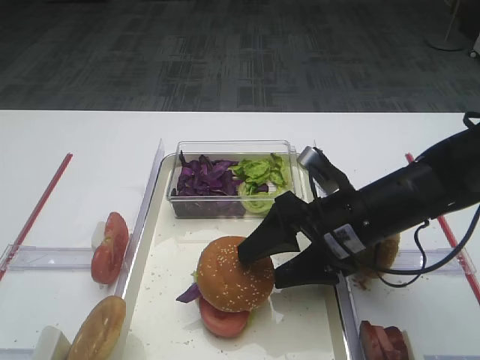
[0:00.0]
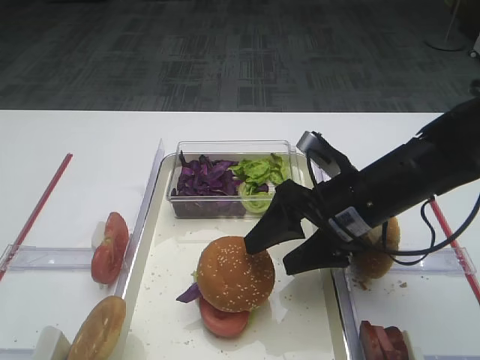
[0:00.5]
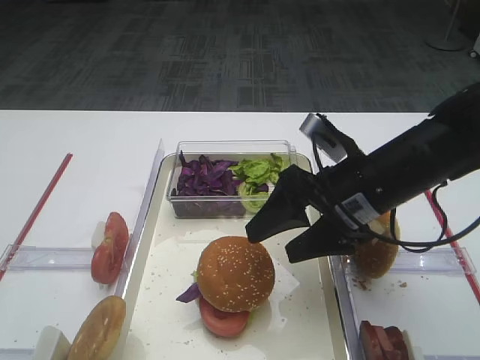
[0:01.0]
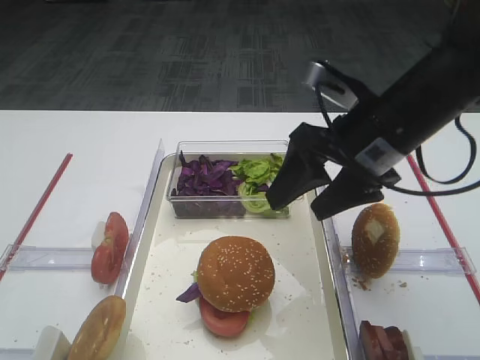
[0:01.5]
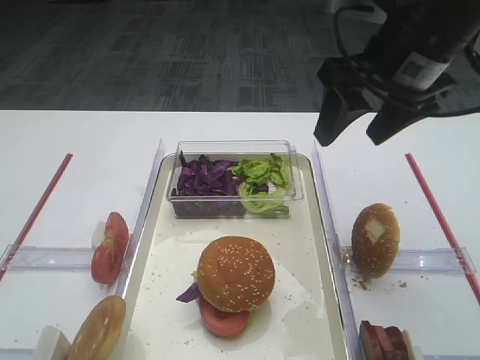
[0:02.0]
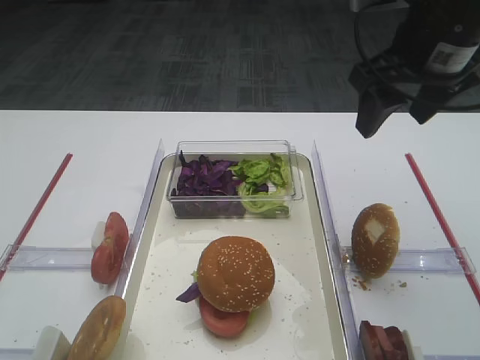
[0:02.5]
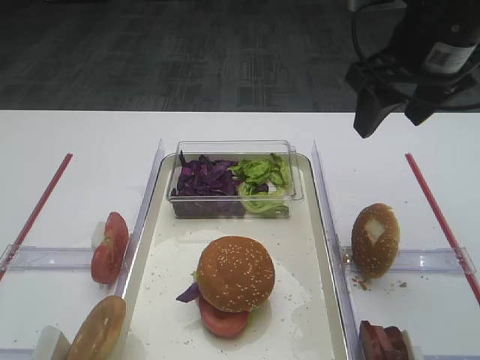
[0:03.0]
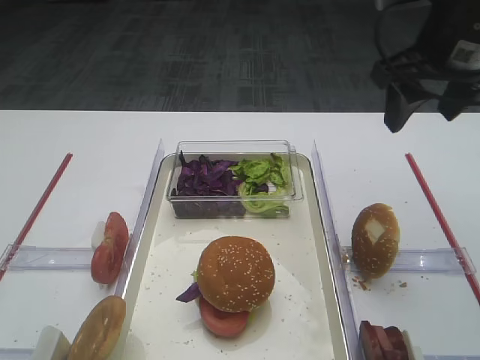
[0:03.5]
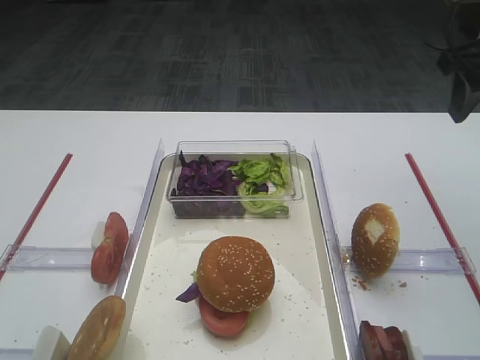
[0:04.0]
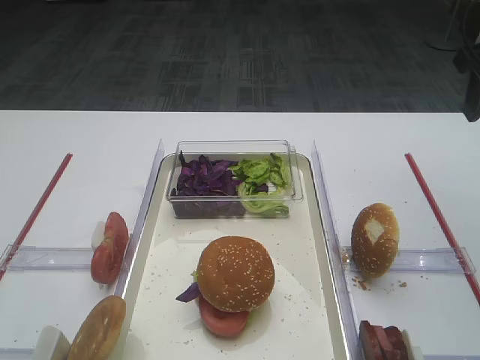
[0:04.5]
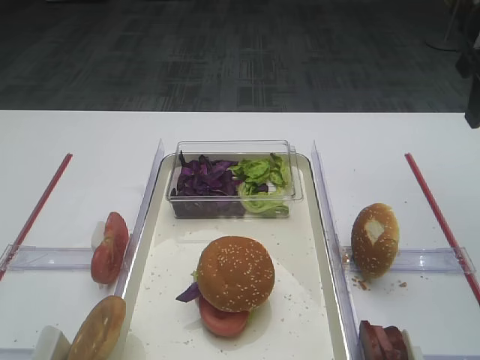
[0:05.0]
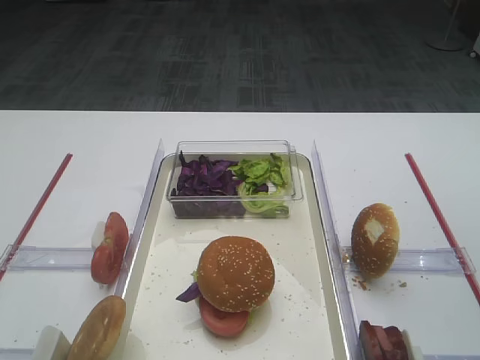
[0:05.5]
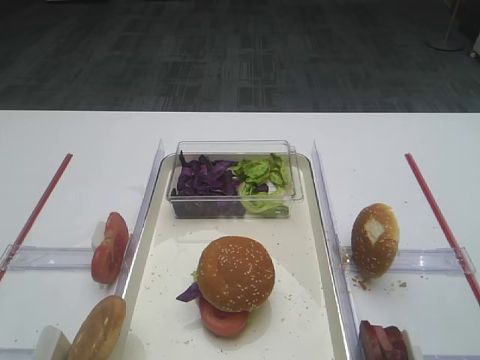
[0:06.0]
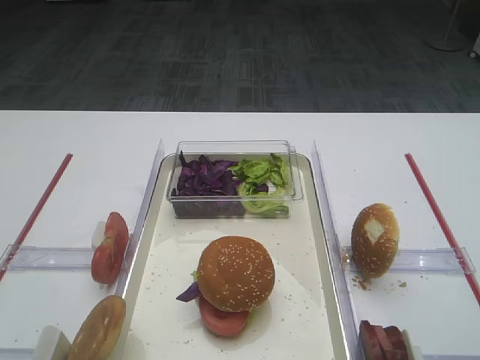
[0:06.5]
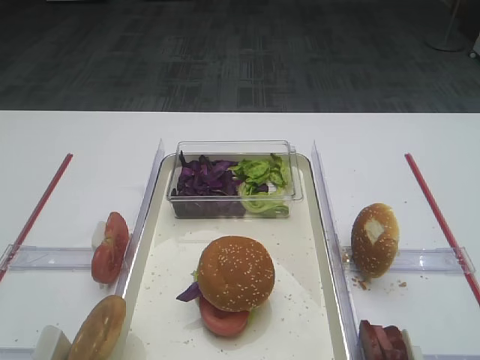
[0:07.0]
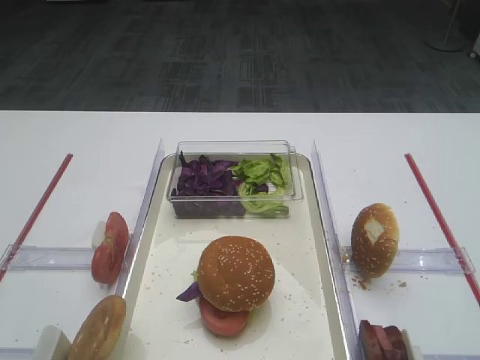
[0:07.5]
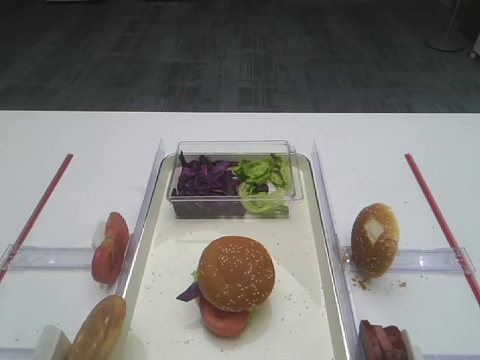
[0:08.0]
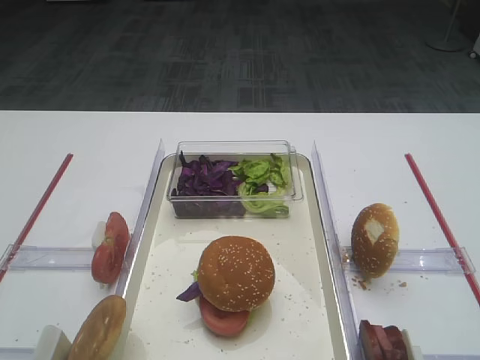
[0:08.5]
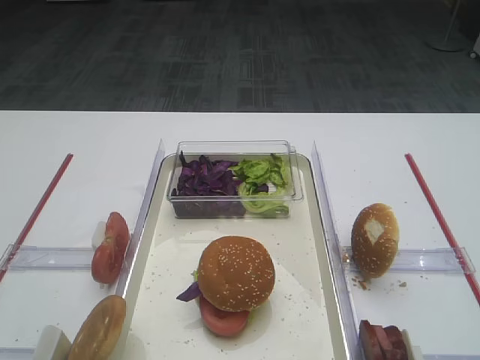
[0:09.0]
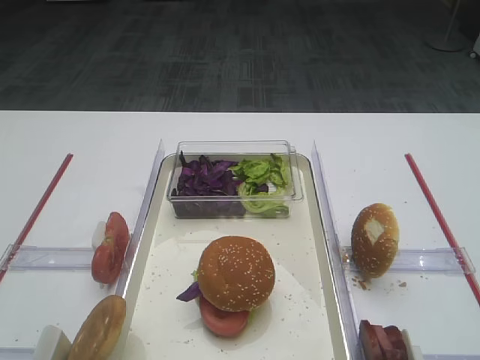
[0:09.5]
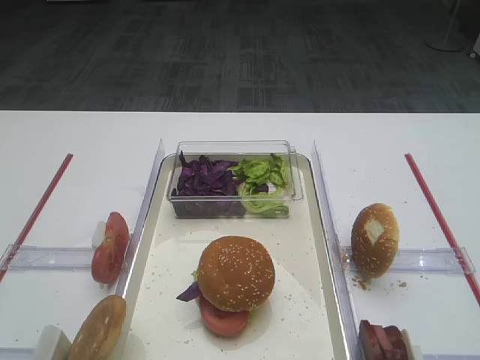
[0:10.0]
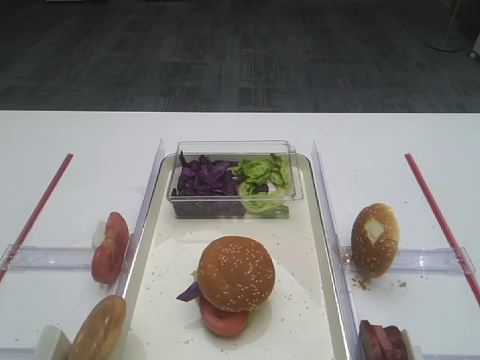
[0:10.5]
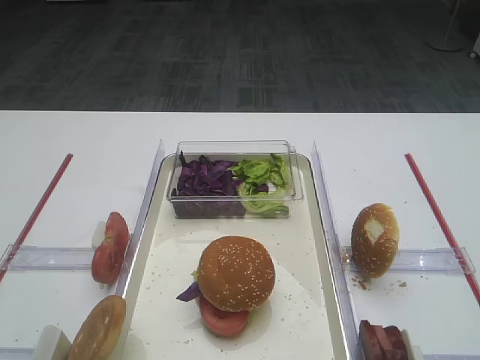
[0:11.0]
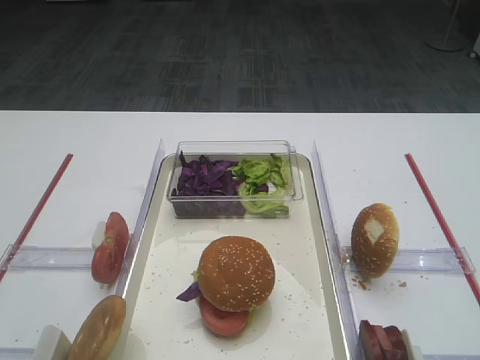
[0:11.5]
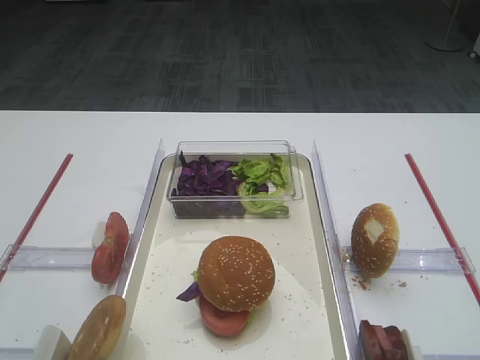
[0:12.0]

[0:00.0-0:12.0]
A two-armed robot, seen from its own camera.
0:00.0 to 0:02.0: The right gripper is displaced upward by roughly 20 cm.
0:02.0 to 0:04.0: The right gripper goes some 10 cm to the right.
0:04.0 to 0:06.0: The right gripper heads backward, covering about 20 cm.
0:08.0 to 0:12.0: Both grippers stay put.

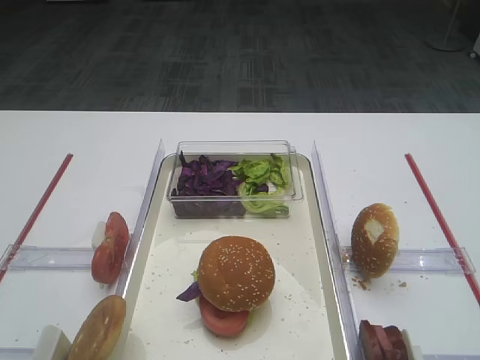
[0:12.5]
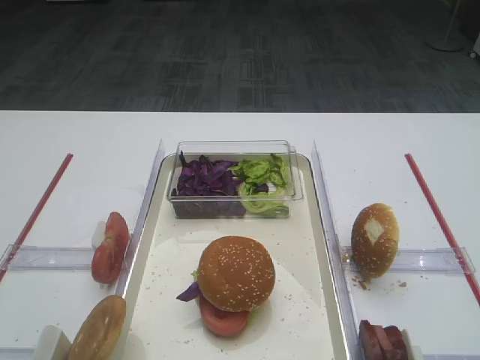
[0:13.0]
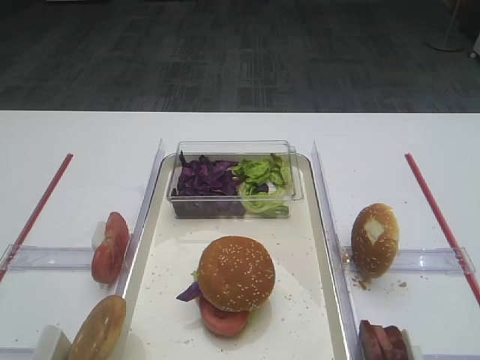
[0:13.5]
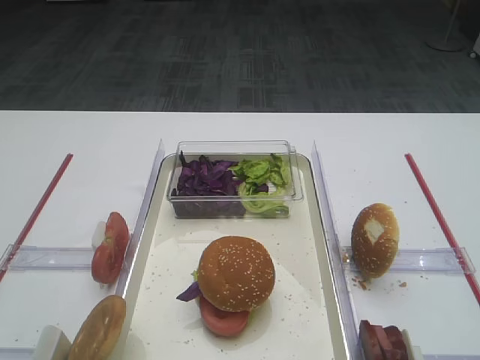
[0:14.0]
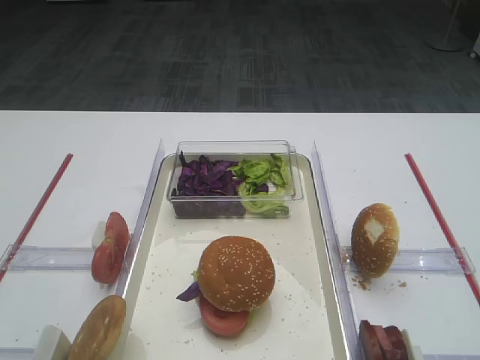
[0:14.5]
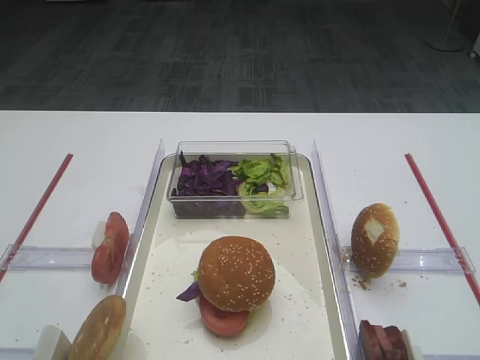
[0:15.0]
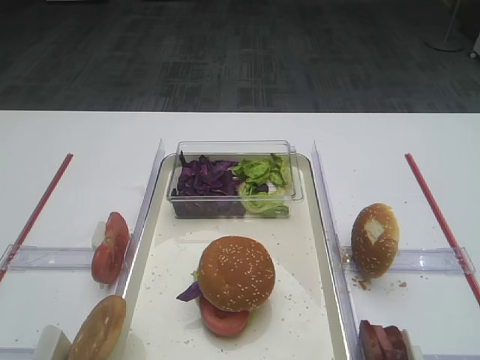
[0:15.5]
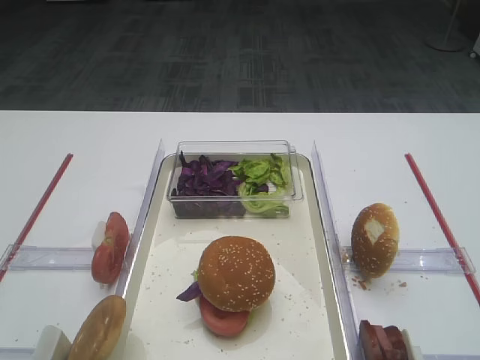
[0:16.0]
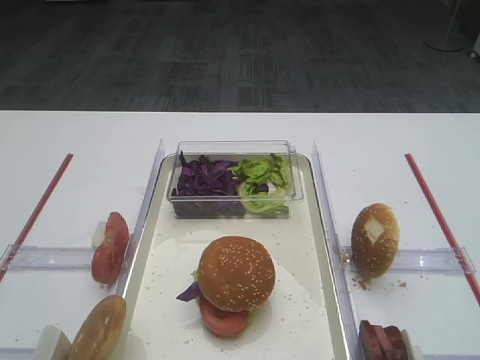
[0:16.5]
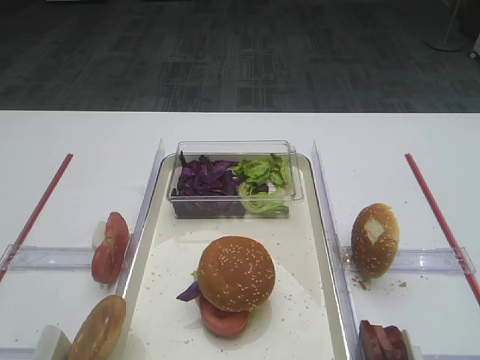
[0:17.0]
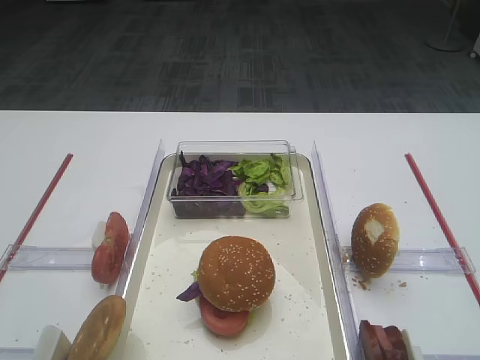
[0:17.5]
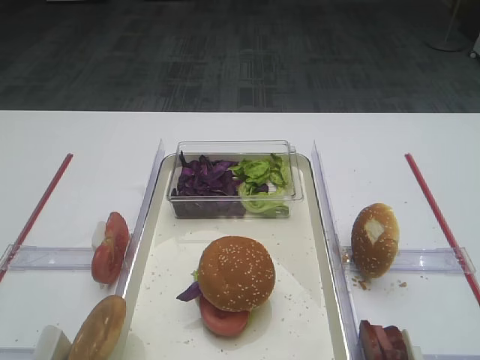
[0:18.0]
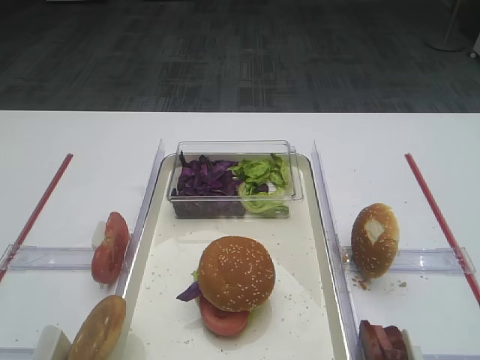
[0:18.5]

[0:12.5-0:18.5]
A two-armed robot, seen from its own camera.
0:12.5 to 0:18.5: Both grippers stay put.

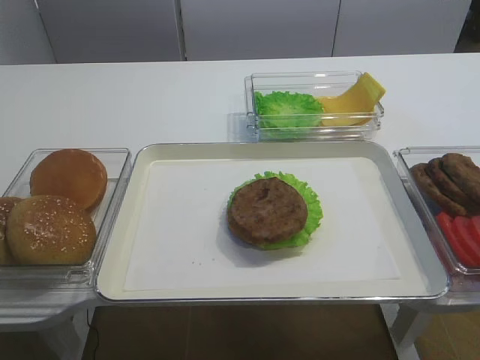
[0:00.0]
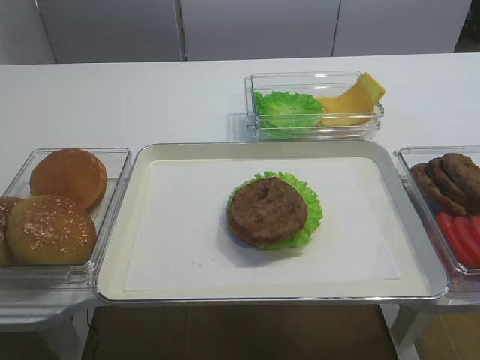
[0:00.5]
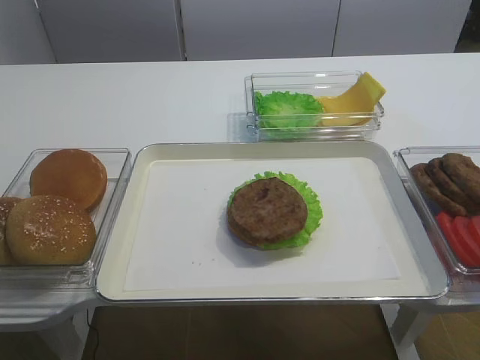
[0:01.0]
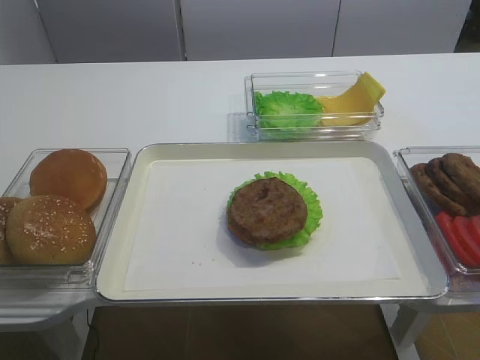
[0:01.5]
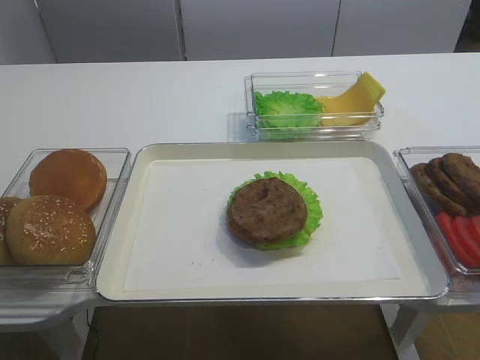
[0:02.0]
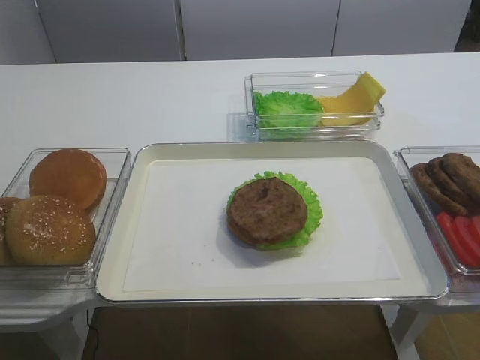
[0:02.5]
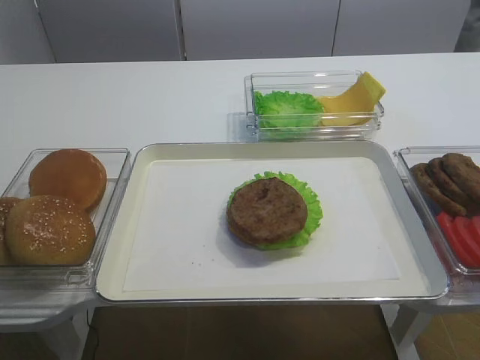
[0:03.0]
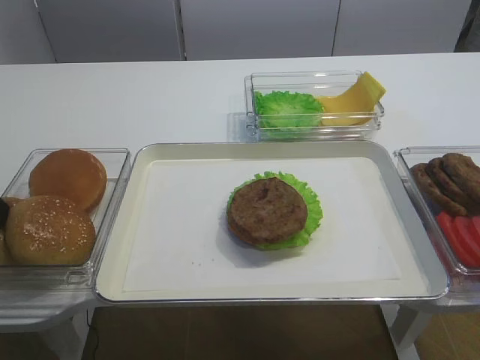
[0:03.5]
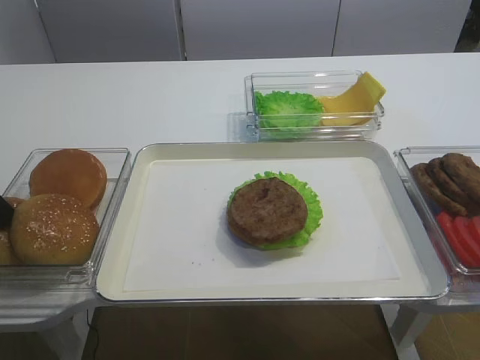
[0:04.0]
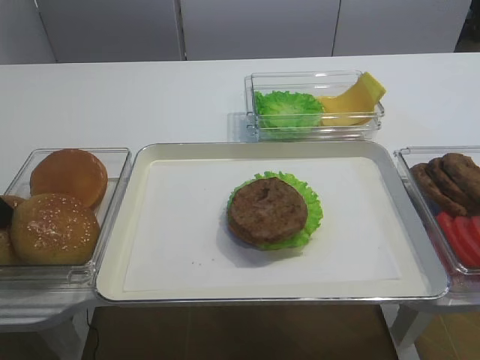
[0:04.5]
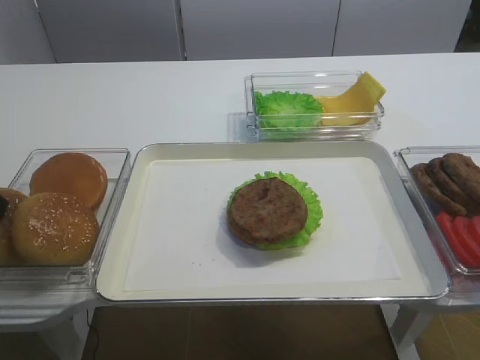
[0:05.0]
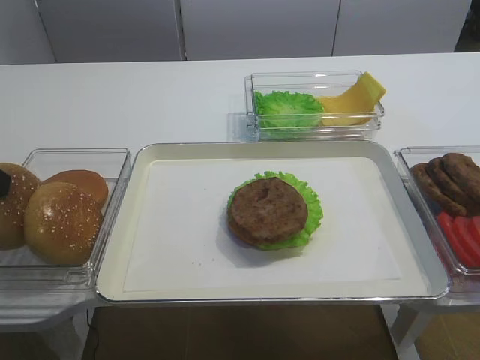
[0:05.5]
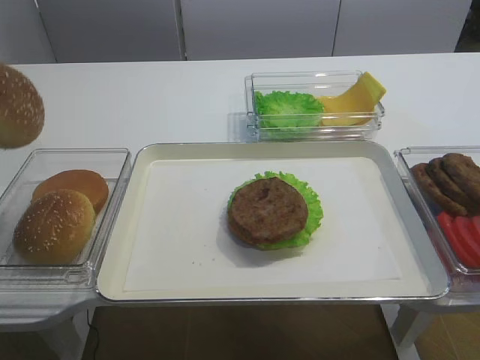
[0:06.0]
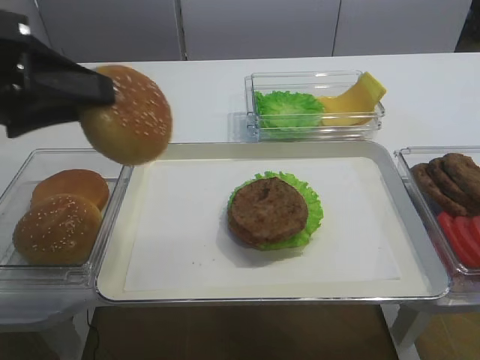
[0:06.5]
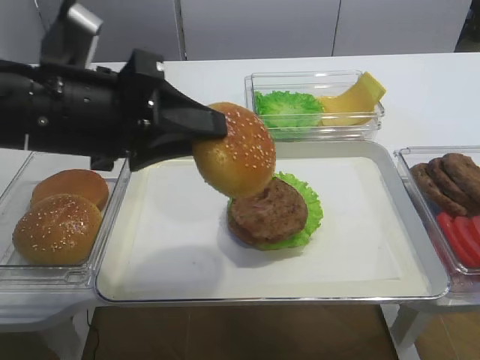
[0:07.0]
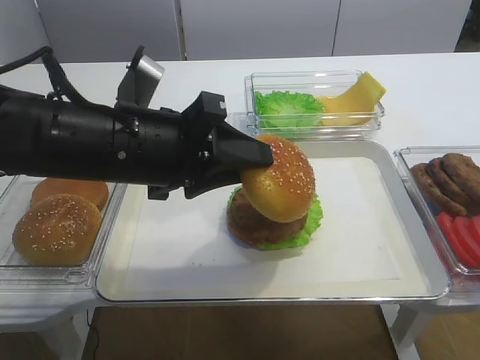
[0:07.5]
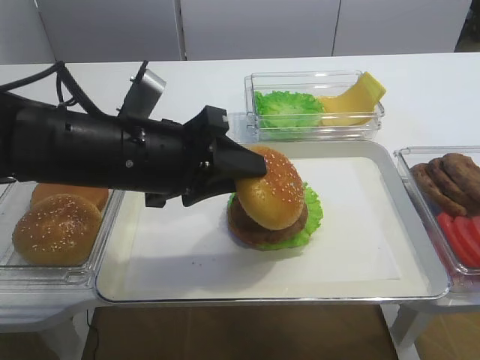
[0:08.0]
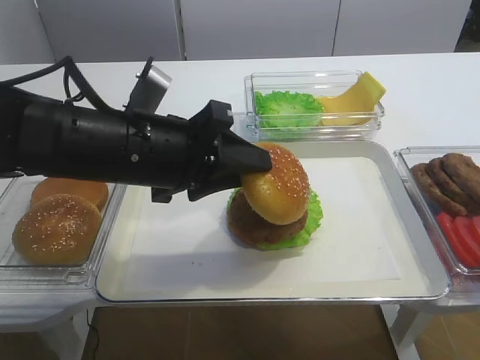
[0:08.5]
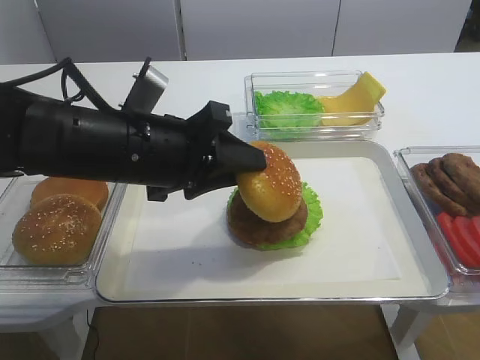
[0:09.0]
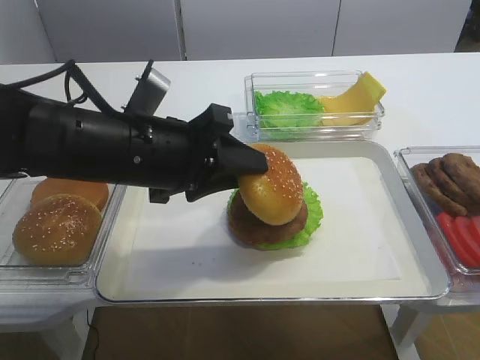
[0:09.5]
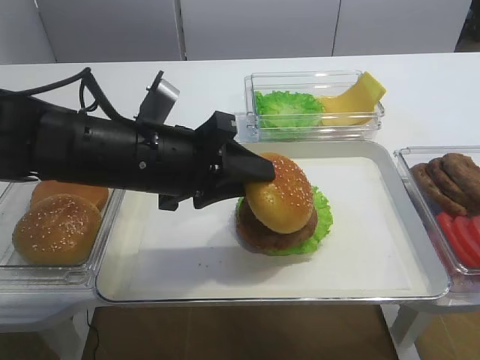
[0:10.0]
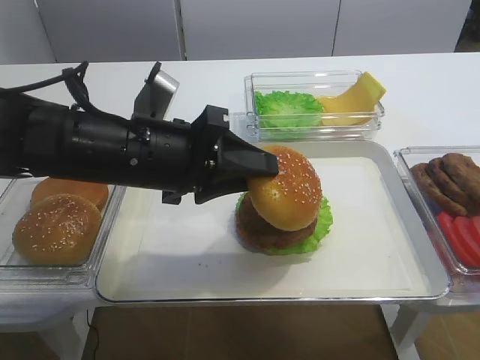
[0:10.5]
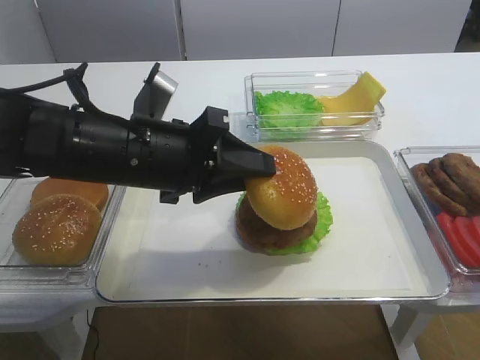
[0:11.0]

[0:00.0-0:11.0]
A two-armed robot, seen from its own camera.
Step, 0:00.0 to 0:05.5: Pick up the hamburger lid with the left gripper.
0:03.5 to 0:05.5: The left gripper closes.
0:05.5 to 0:07.5: The left gripper travels to the right by roughly 20 cm.
0:07.5 to 0:11.0: The grippers move only a little.
